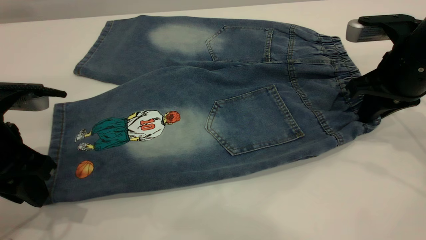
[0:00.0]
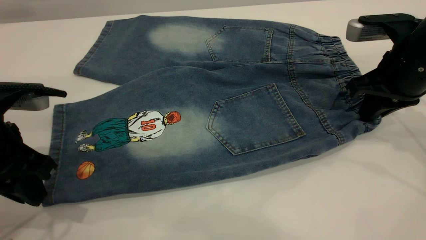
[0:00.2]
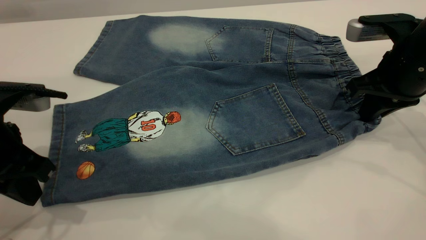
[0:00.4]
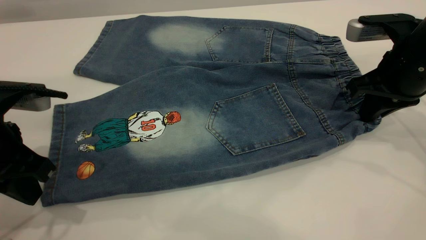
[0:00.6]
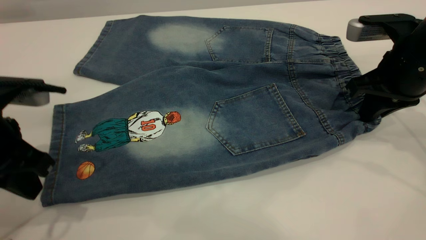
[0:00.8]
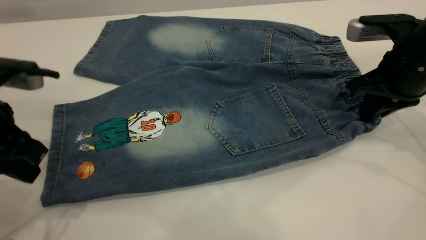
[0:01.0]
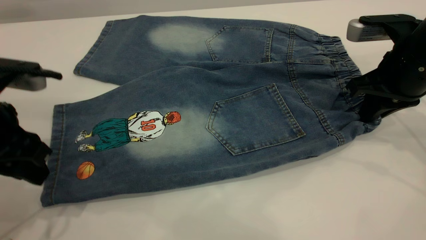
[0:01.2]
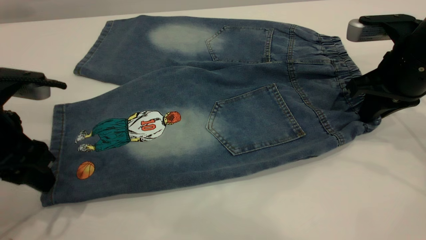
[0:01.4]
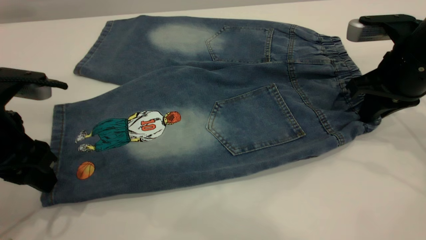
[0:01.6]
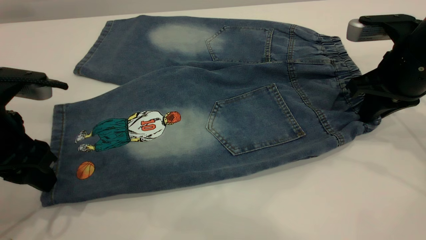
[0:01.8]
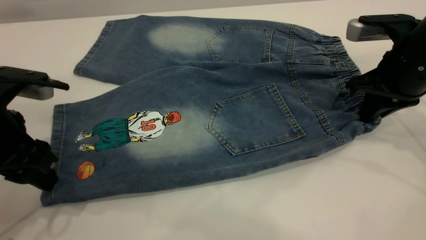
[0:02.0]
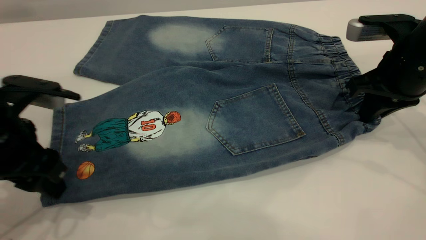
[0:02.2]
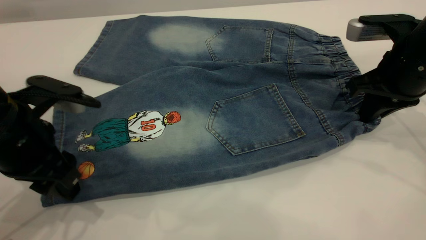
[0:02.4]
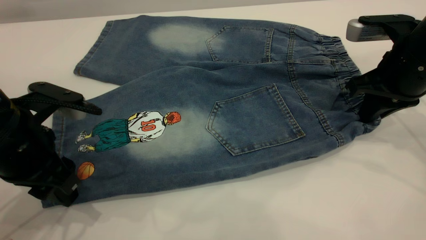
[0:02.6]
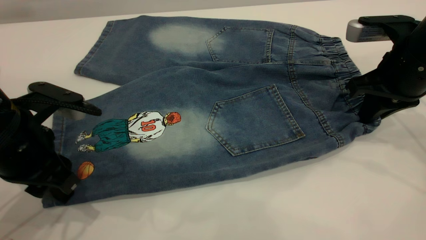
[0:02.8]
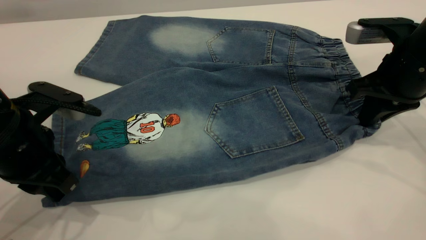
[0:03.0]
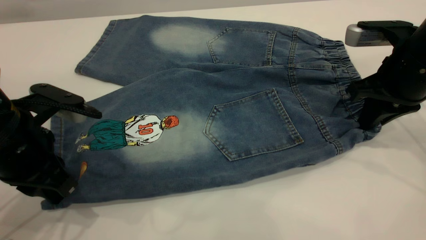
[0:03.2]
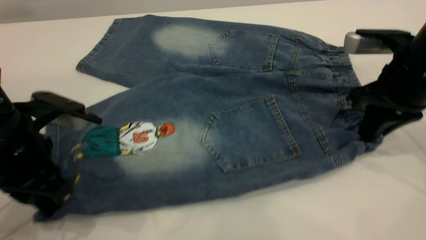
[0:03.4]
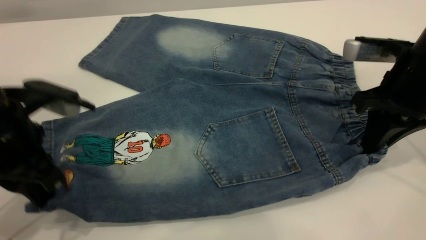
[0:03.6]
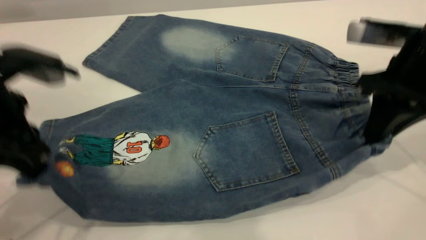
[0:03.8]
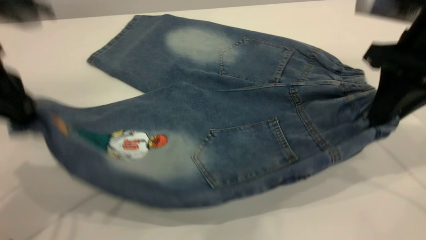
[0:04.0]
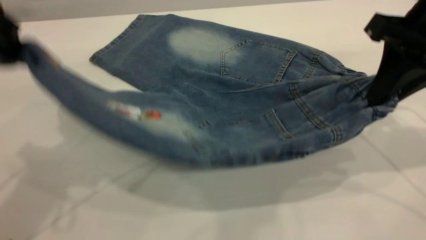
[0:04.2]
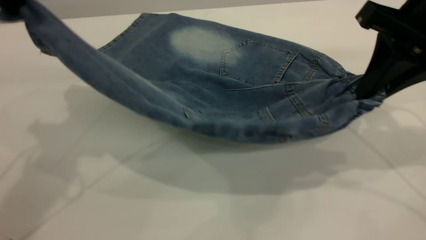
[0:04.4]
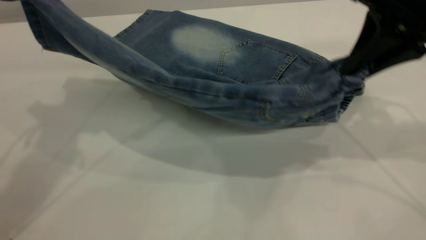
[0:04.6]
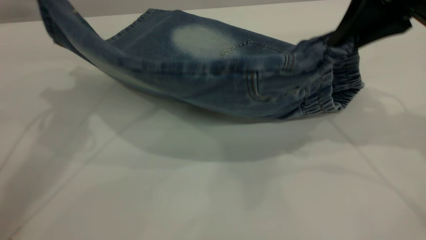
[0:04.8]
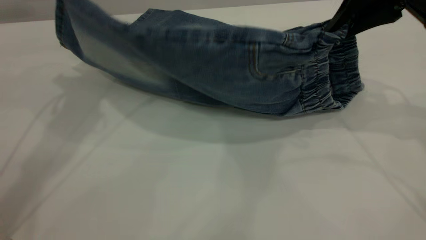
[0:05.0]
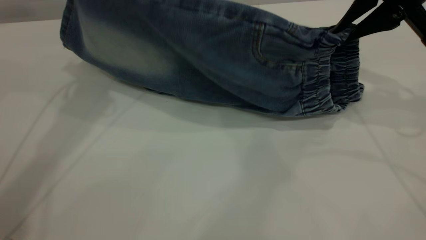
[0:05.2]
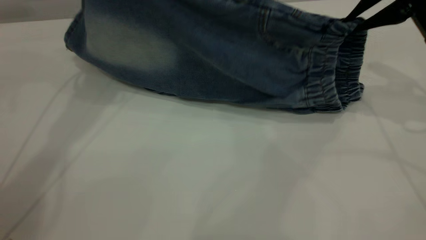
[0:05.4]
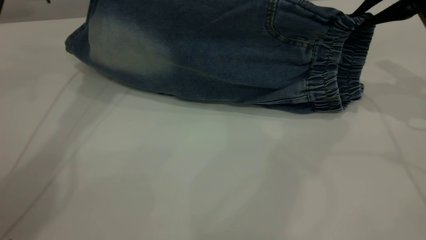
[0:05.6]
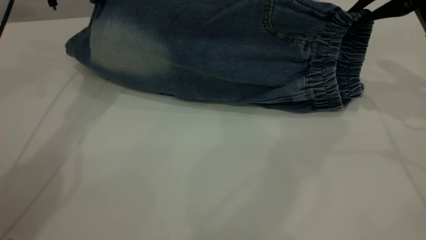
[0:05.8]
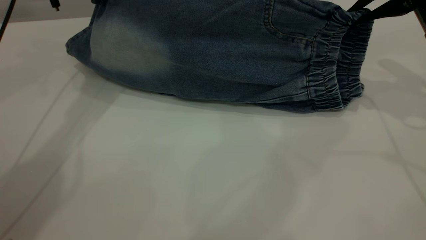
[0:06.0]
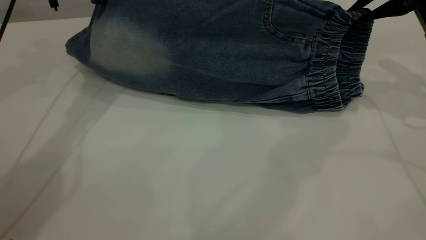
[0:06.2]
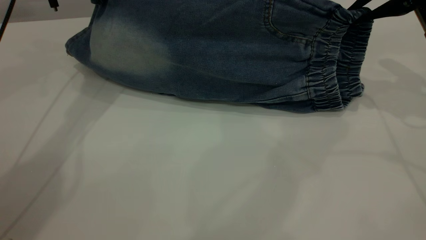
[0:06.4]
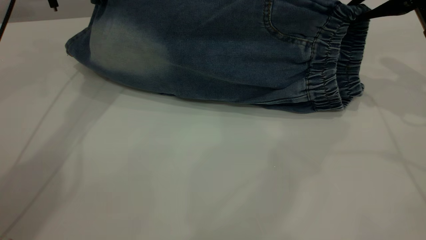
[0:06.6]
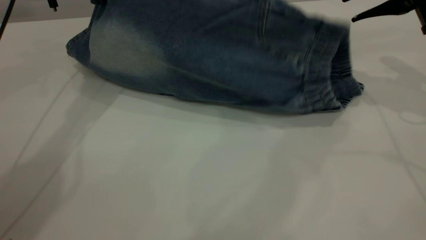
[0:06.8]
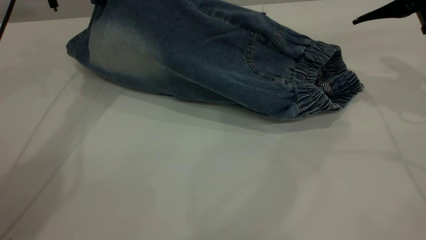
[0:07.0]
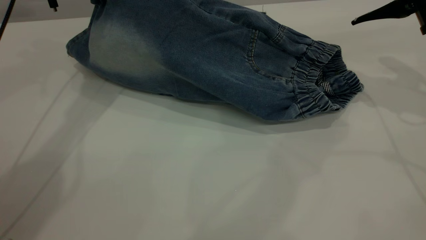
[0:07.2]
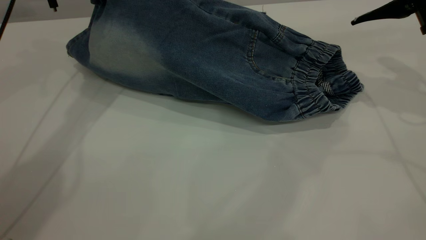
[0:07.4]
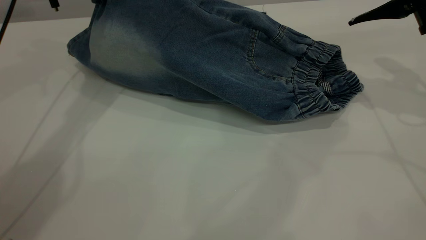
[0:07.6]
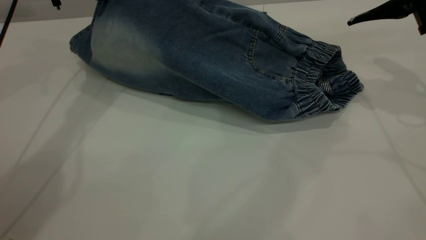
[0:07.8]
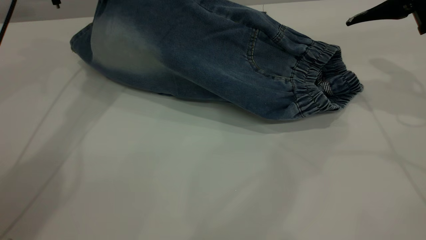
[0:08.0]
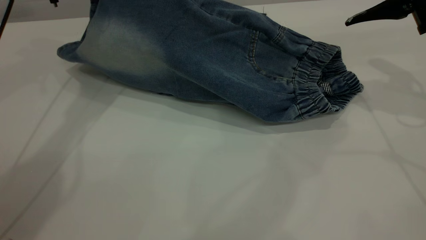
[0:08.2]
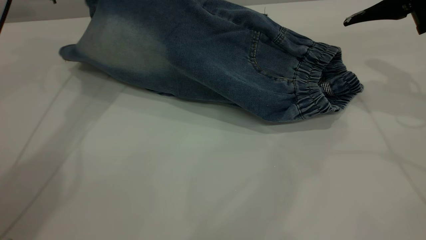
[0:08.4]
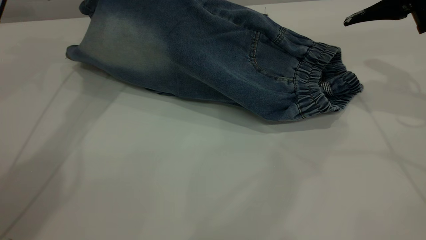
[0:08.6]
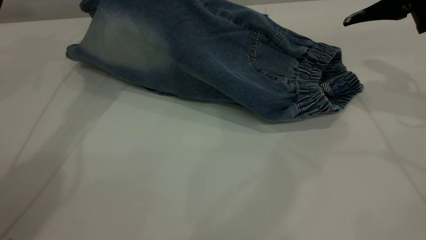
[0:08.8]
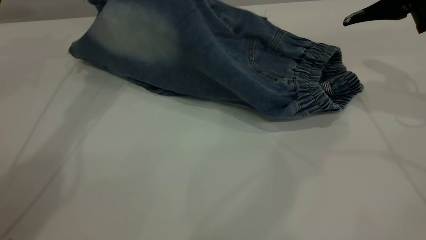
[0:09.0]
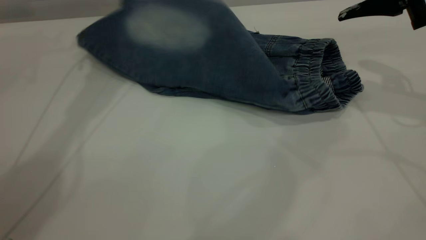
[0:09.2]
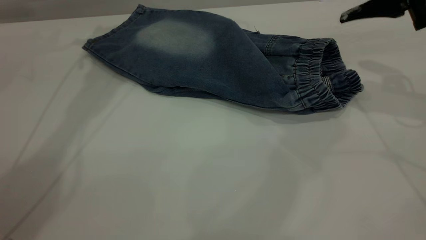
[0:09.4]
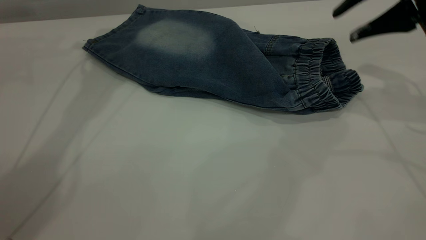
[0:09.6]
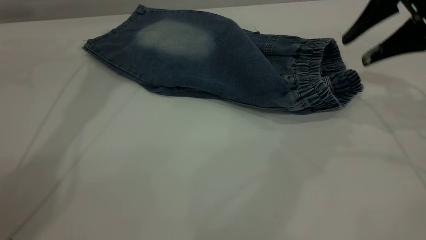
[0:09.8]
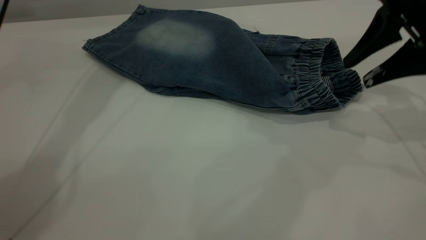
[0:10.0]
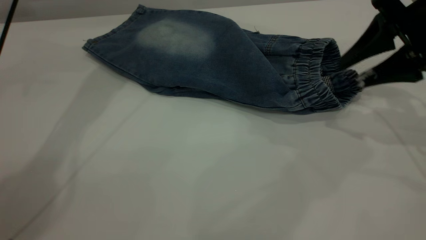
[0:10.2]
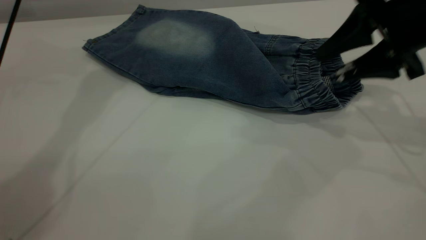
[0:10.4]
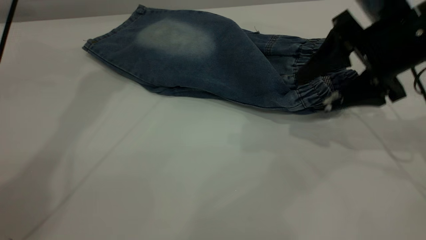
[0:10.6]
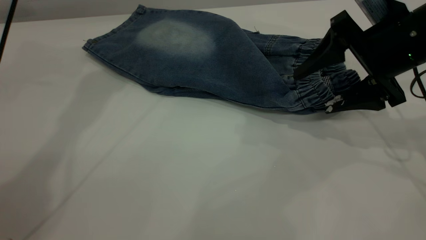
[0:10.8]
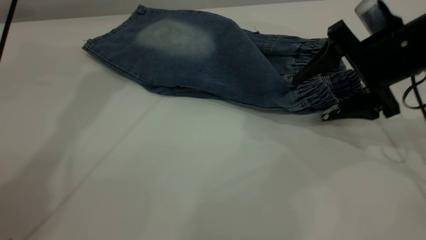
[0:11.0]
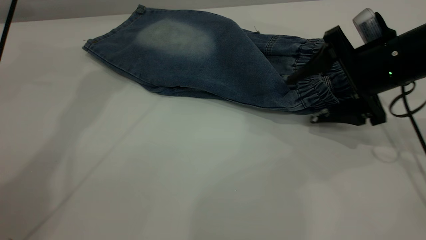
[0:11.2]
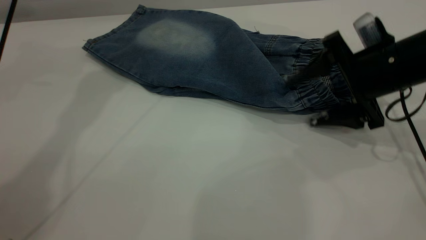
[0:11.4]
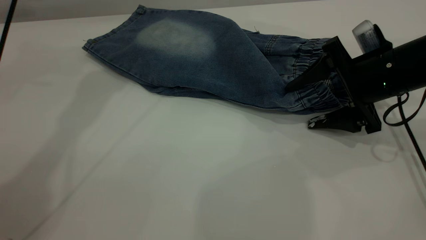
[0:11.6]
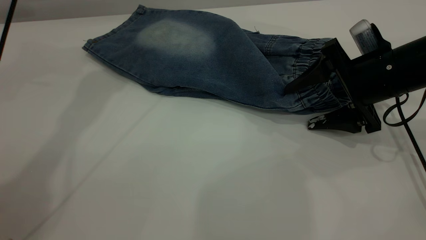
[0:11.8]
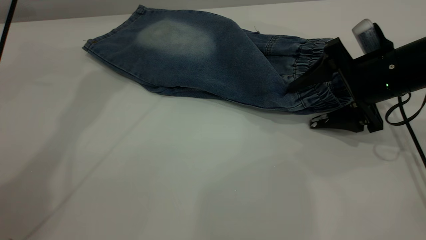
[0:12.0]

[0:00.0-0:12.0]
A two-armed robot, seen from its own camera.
Step, 0:00.0 to 0:09.6: Fold the bottom of the pants upward.
0:00.0 to 0:01.6: The left gripper opens.
0:01.6 to 0:03.0: The left gripper closes up.
0:03.0 to 0:04.4: The left gripper travels upward by roughly 20 cm; the right gripper moves upward, roughly 10 cm.
0:04.4 to 0:06.0: The left gripper heads forward and downward, covering roughly 20 cm, while the right gripper goes some 10 cm forward and to the right.
0:06.0 to 0:07.6: The right gripper opens.
0:07.6 to 0:09.0: The left gripper opens up.
0:09.0 to 0:10.4: The right gripper heads downward, covering approximately 5 cm, while the left gripper goes about 10 cm to the right and upward.
0:10.4 to 0:12.0: The right gripper heads downward, covering roughly 10 cm.

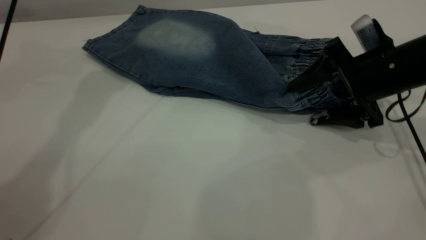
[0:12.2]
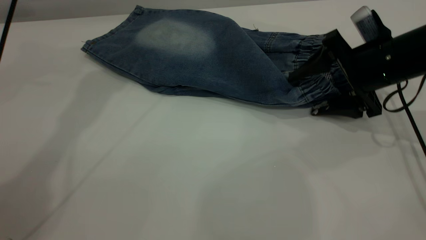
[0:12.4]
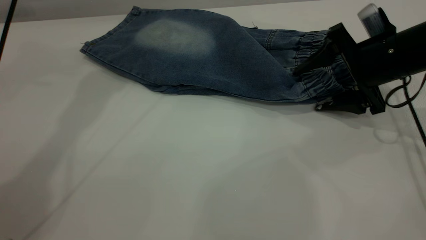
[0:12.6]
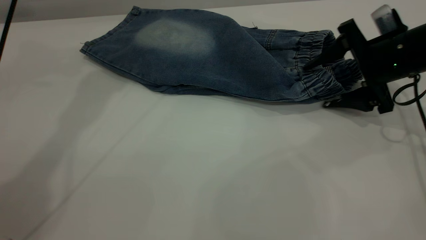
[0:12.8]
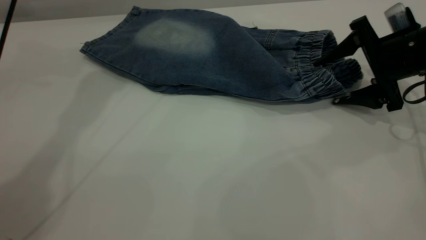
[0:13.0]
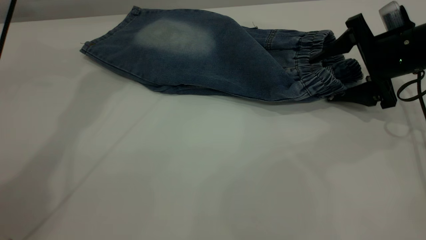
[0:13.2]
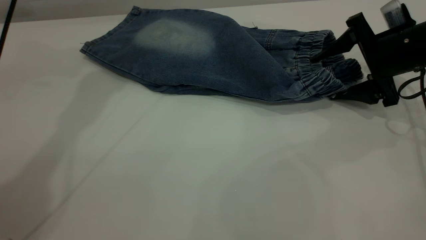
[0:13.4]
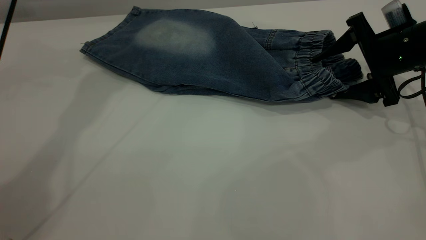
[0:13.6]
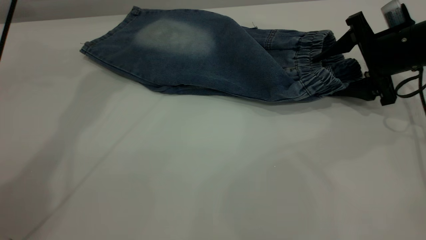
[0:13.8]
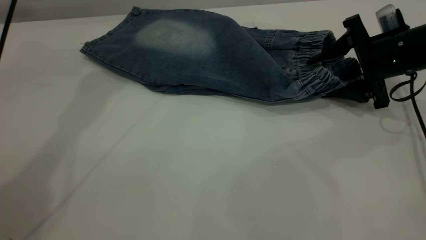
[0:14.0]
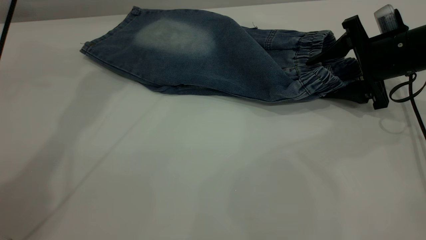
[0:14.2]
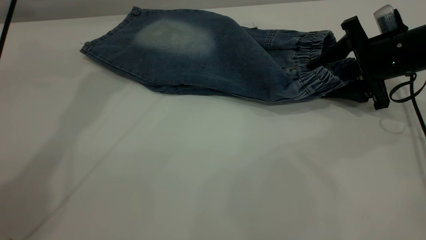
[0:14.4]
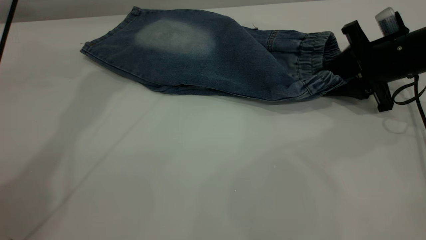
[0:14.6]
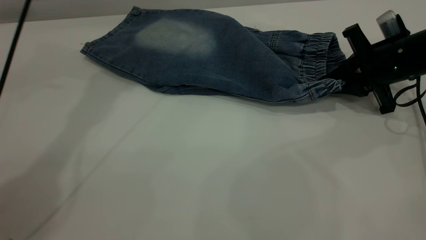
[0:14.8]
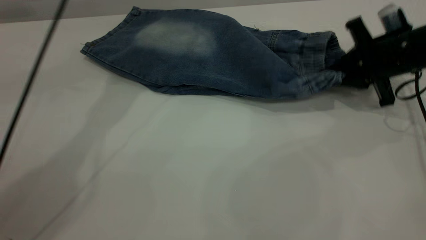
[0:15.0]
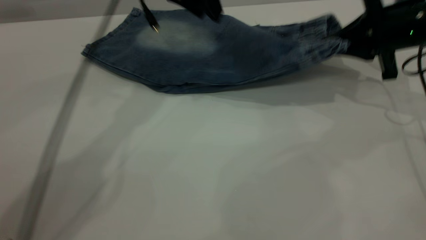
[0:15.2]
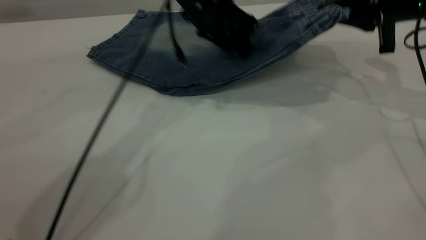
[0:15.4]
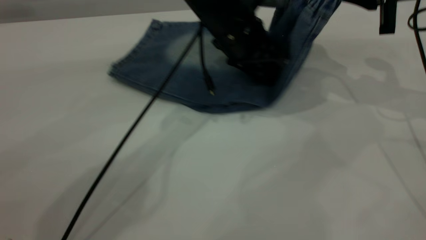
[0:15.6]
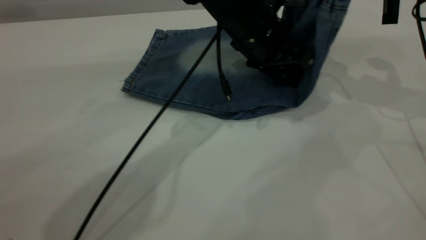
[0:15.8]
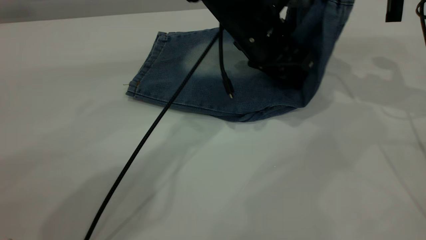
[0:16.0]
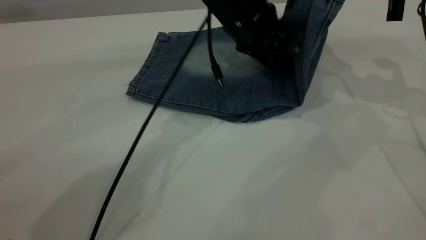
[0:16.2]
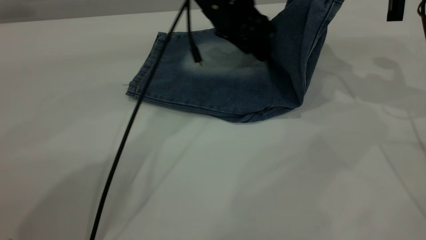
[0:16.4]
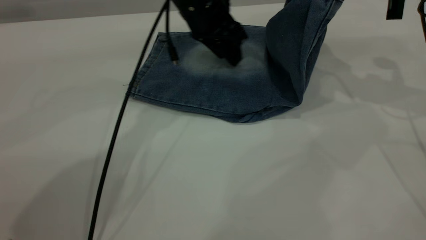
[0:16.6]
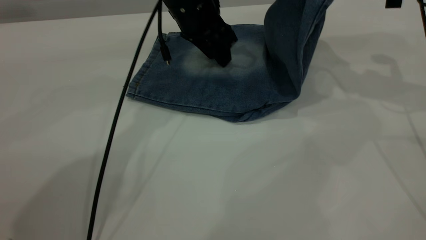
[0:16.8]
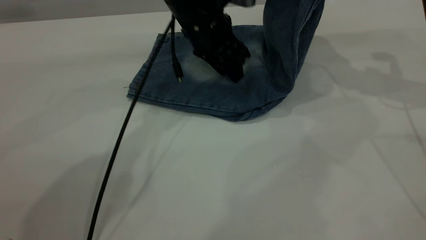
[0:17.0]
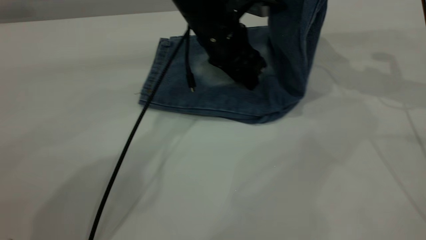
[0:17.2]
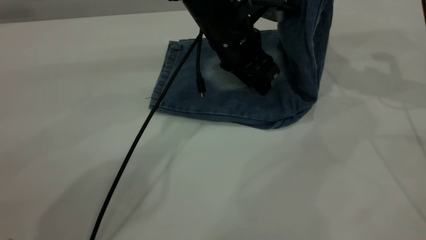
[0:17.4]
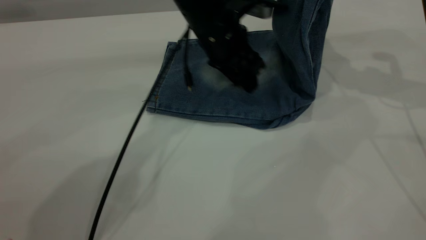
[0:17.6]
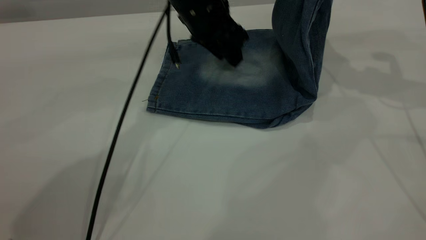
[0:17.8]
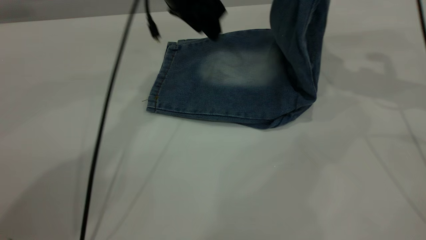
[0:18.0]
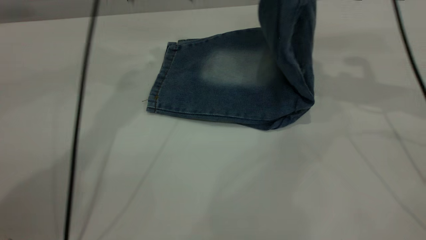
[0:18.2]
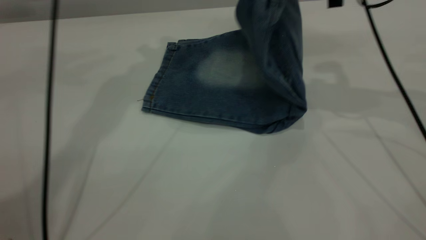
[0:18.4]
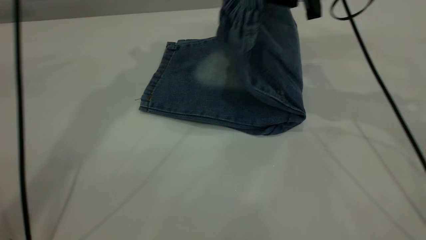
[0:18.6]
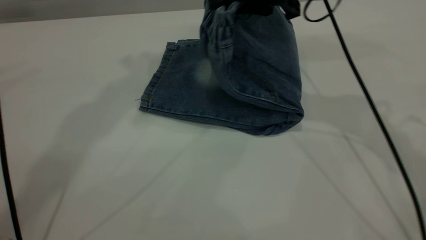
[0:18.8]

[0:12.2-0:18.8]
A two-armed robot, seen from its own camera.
0:12.2 to 0:13.8: The right gripper moves some 5 cm.
0:13.8 to 0:15.4: The right gripper shifts roughly 10 cm upward, and closes up. Meanwhile the left gripper heads downward and to the right, covering some 20 cm.
0:15.4 to 0:17.2: The right gripper heads upward, covering about 5 cm, while the left gripper moves left and right over some 10 cm, changing direction 2 times.
0:17.2 to 0:18.8: The left gripper travels upward and to the left by about 40 cm; the right gripper goes roughly 15 cm to the left.
